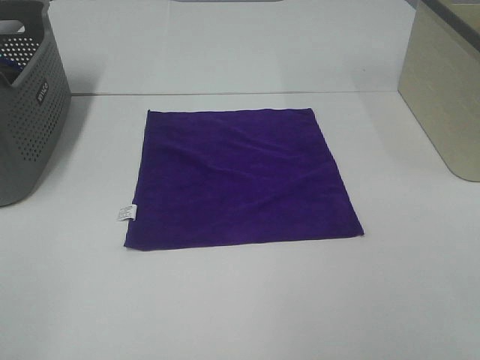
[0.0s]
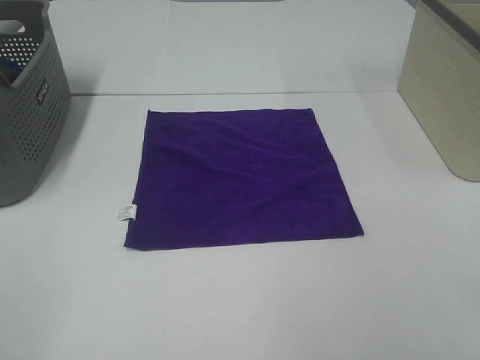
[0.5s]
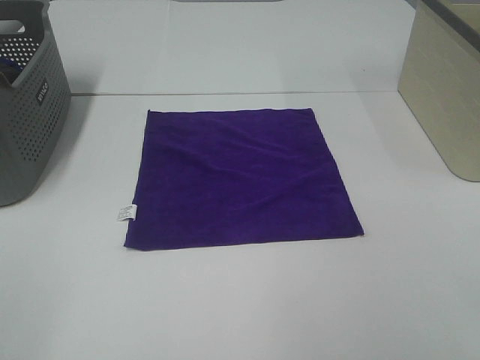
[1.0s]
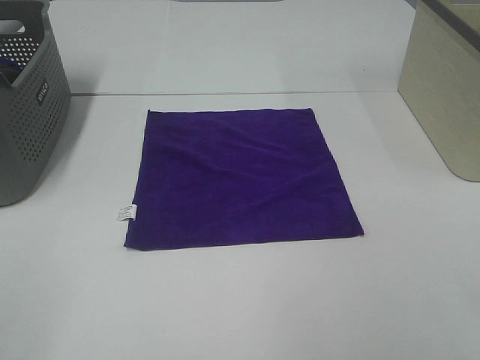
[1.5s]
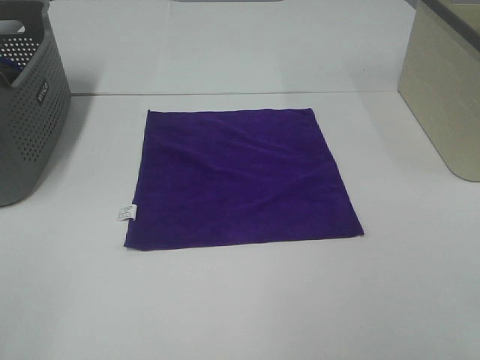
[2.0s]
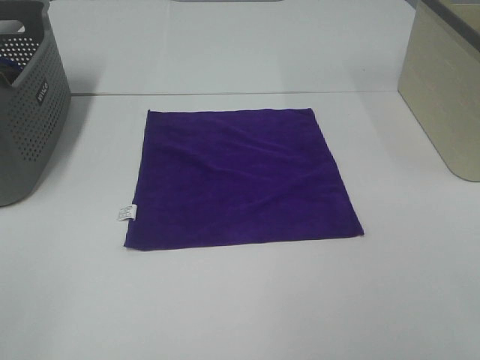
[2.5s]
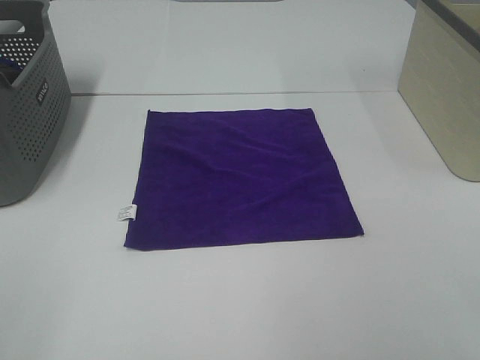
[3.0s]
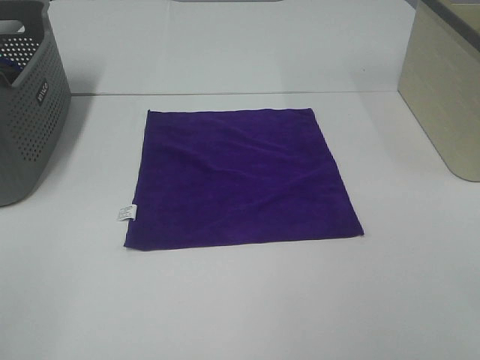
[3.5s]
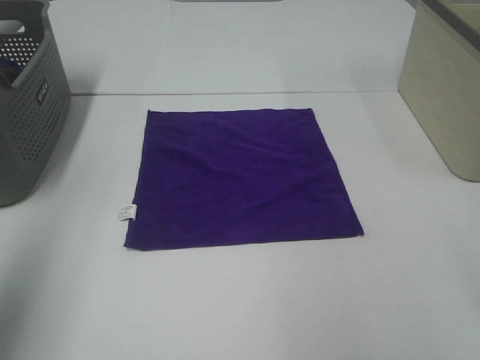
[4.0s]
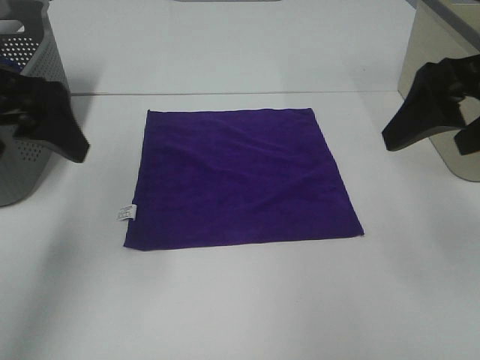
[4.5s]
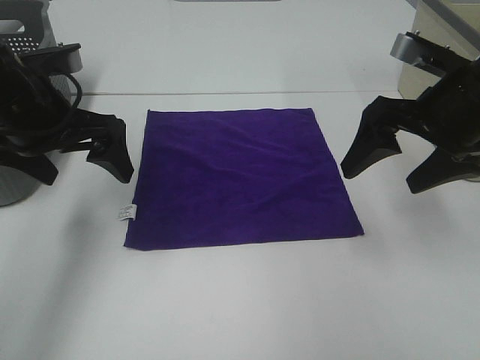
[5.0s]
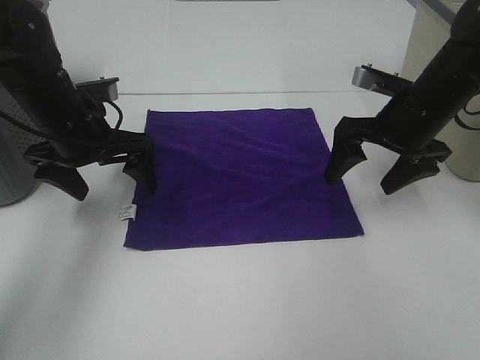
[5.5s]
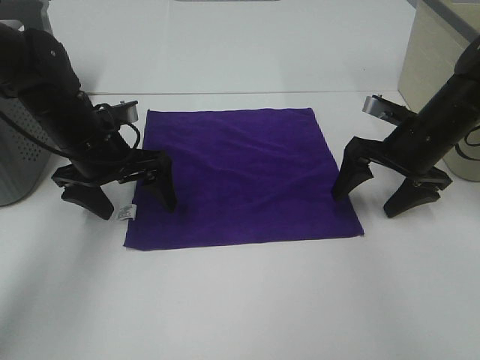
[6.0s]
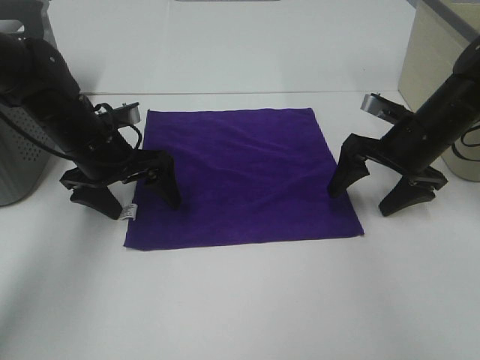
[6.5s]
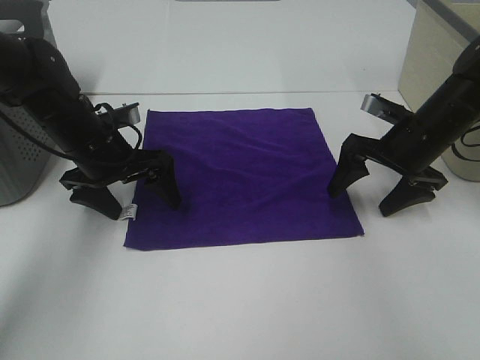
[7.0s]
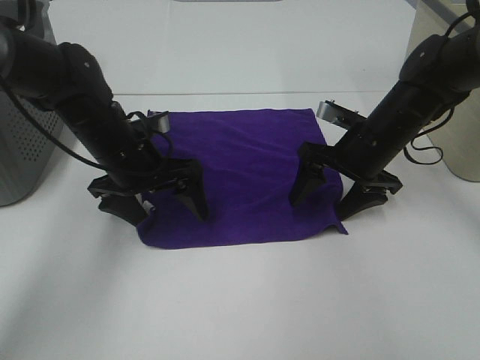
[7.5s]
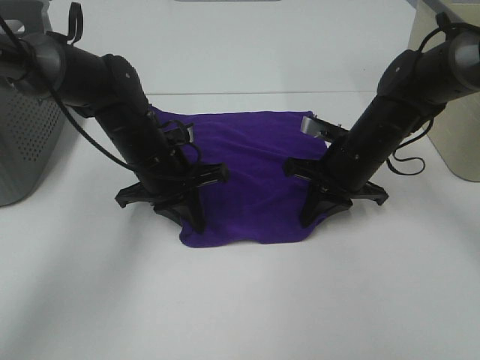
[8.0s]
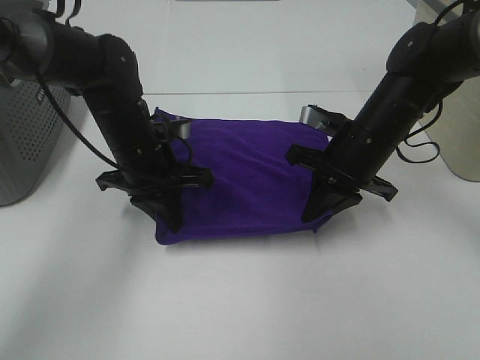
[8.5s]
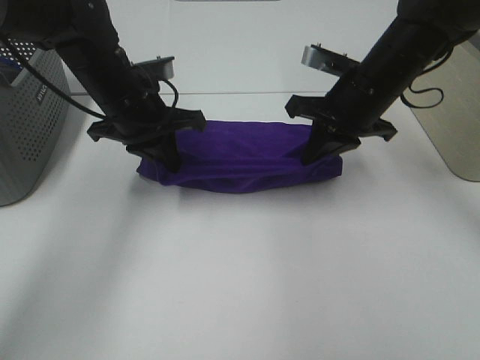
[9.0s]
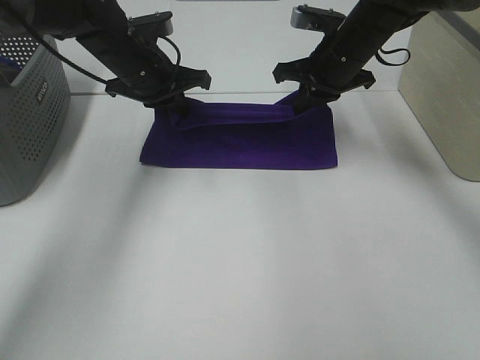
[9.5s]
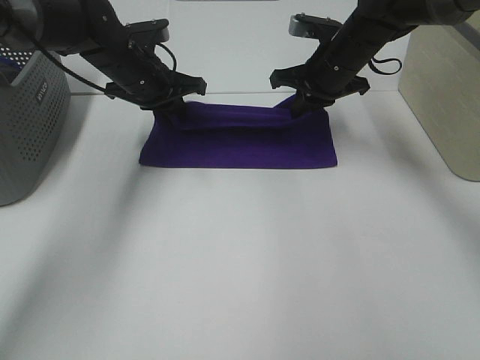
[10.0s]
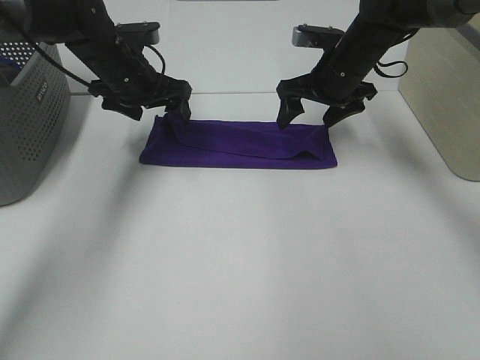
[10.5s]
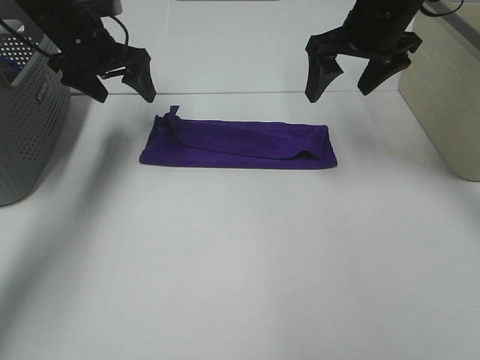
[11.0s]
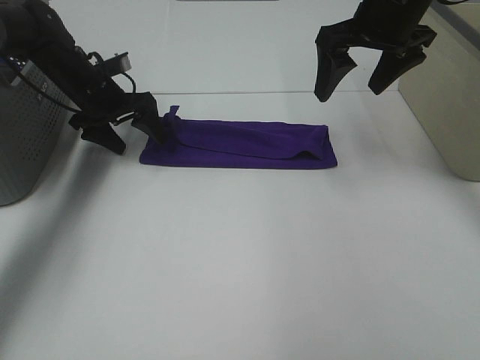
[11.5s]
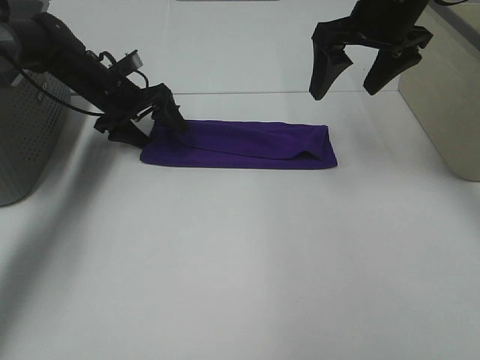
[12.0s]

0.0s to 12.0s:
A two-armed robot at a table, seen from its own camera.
Task of the whole recording: Fold towels.
Step, 0.0s to 8.0s: Left hand: grab the bottom left corner of purple towel.
Step, 0.0s to 8.0s: Right hand: grab the bottom right corner of purple towel.
Step, 8.5s to 9.5s: Left hand: fold the purple towel up.
Step, 8.5s to 9.5s: Right hand: fold the purple towel up.
0.0s to 2.0s: Both grippers stay put.
2.0s to 4.0s: The left gripper heads forward and upward, covering approximately 15 cm.
4.0s to 6.0s: The left gripper travels downward, forward and to the right by about 35 cm, while the right gripper travels forward and downward by roughly 35 cm.
6.0s to 8.0s: The left gripper travels to the right by roughly 5 cm, and closes its fingers. The right gripper moves to the left, some 10 cm, and closes up.
8.0s to 10.0s: The two grippers go approximately 15 cm forward and upward.
10.0s to 12.0s: The left gripper travels to the left and downward by some 10 cm, and opens; the right gripper shifts about 10 cm upward and backward, and opens up.

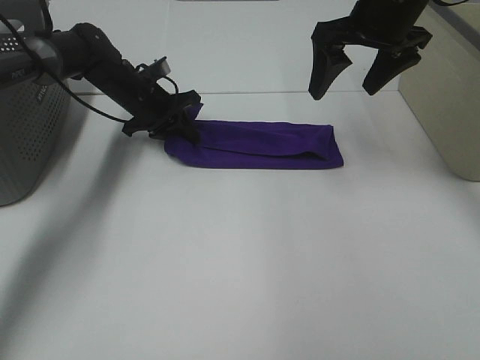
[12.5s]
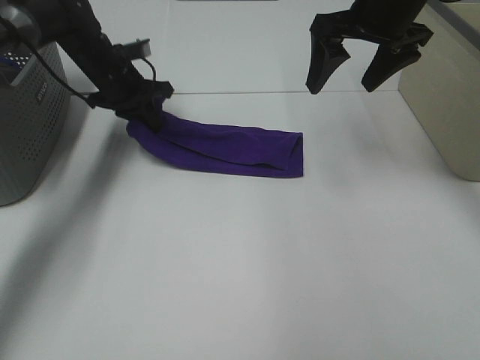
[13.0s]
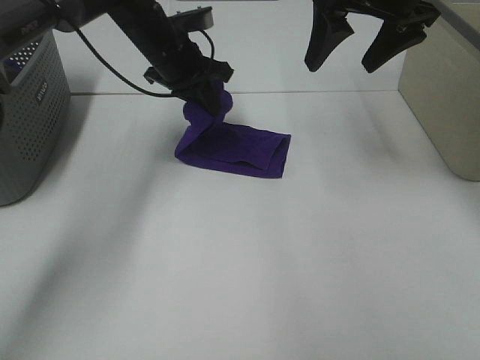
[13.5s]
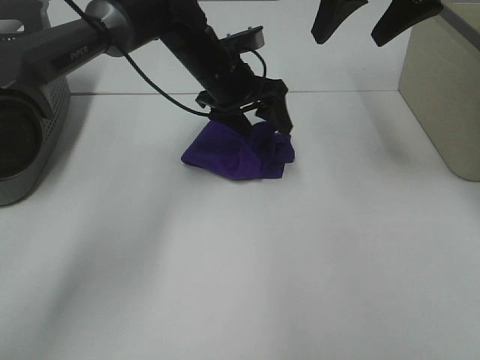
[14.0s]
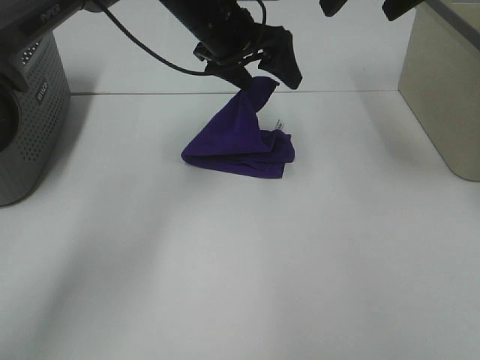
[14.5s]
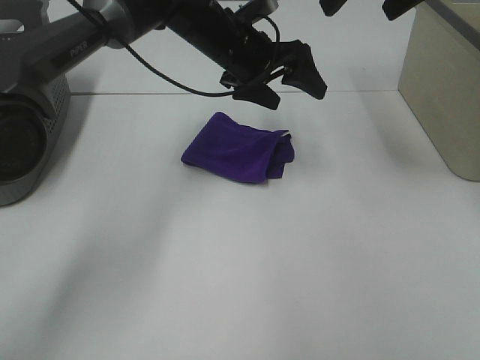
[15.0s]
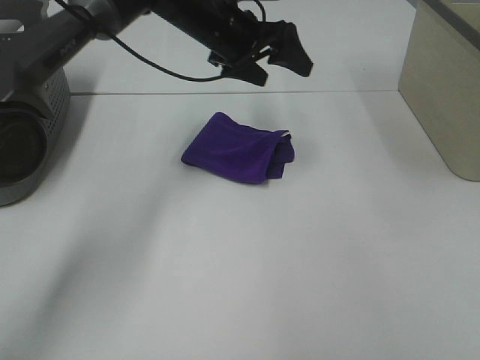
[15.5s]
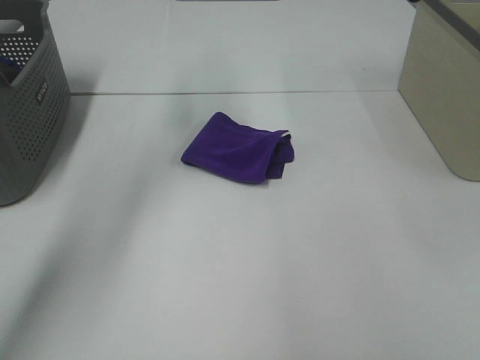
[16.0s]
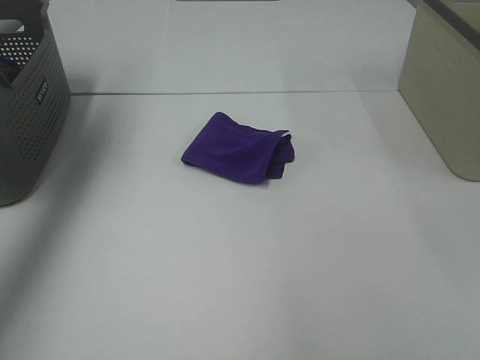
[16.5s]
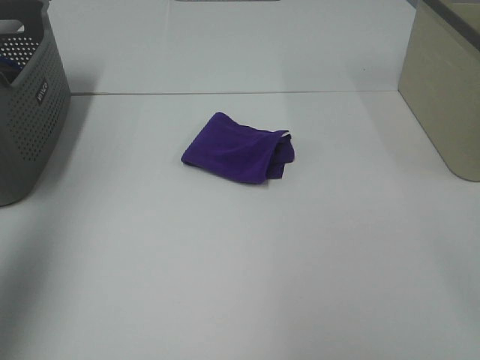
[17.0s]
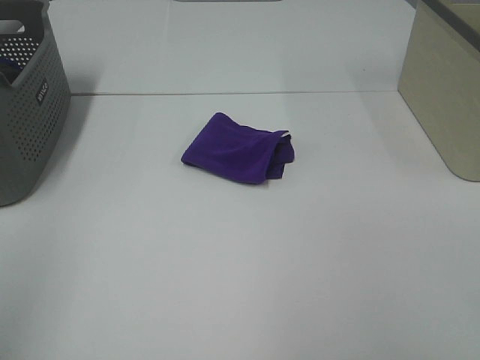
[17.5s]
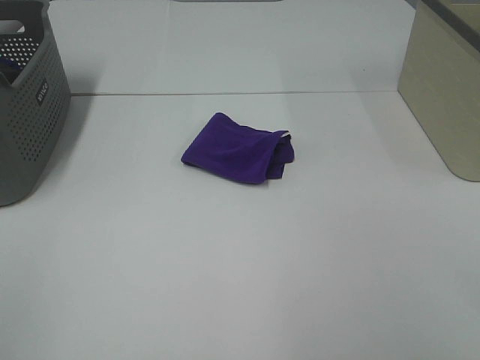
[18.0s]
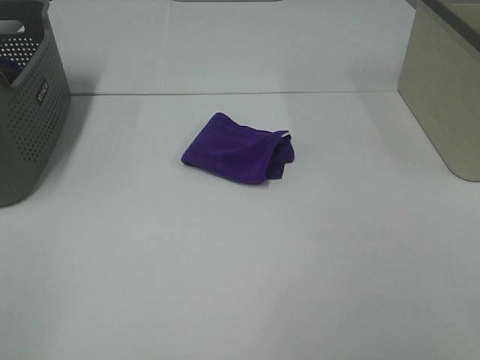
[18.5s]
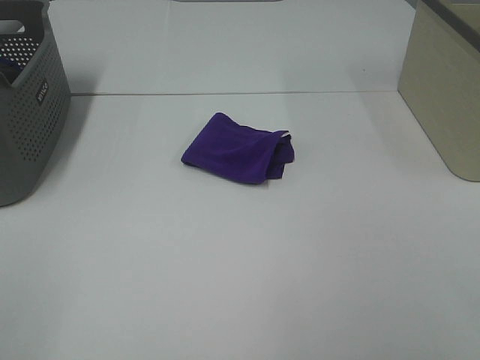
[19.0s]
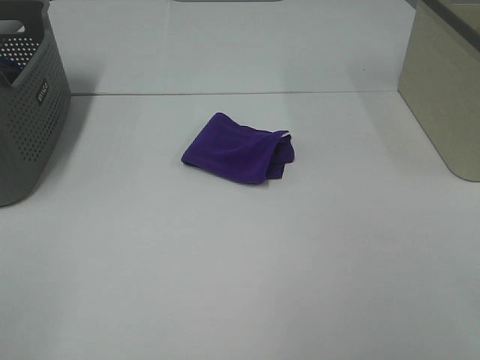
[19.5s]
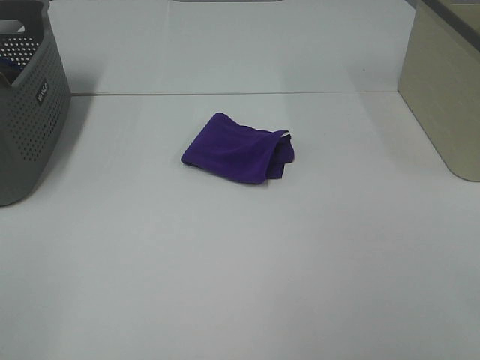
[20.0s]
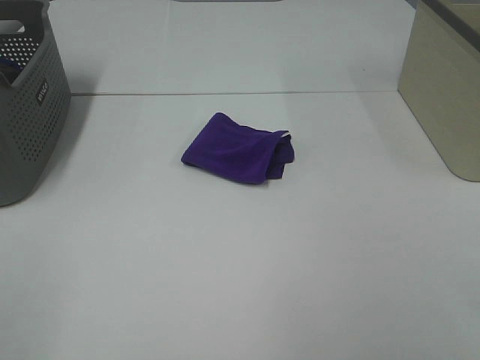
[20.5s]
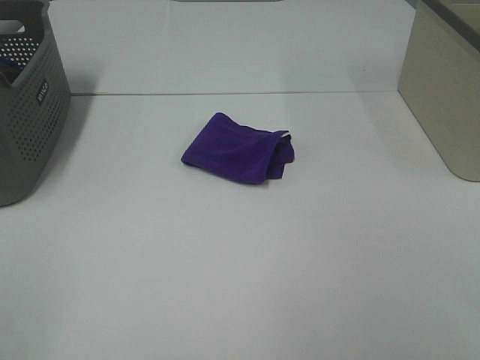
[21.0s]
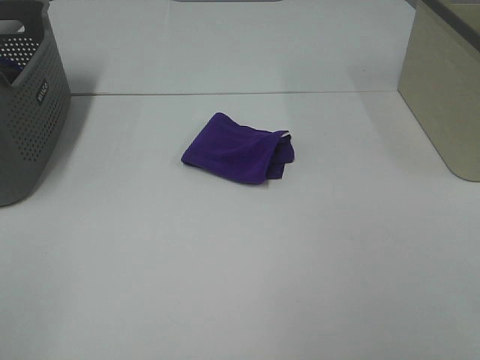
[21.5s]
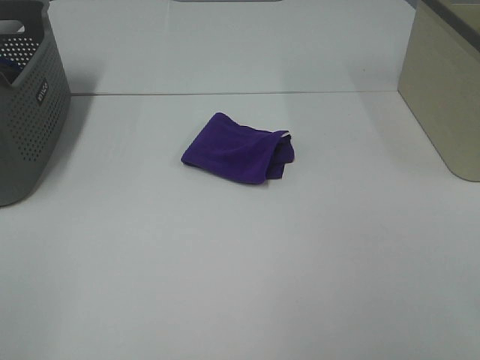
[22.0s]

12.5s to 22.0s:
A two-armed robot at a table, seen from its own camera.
Task of the whole recording: Fold towels.
12.5s to 14.5s: The left gripper travels upward and to the right by some 20 cm, and opens up. Meanwhile the right gripper moves upward, roughly 10 cm.
14.5s to 16.5s: The left gripper travels to the left and upward by about 35 cm; the right gripper travels backward and upward by some 15 cm.
16.5s to 18.0s: The left gripper shifts approximately 40 cm backward.
20.0s to 22.0s: The two grippers keep their place.
